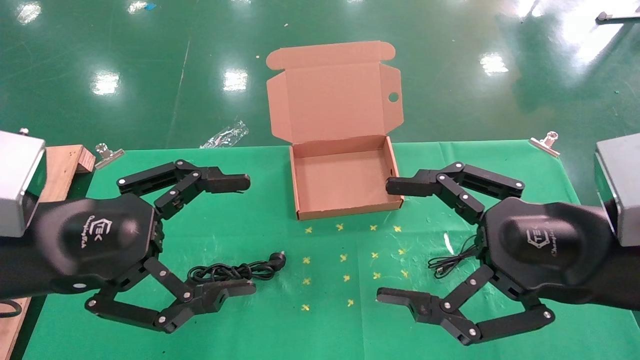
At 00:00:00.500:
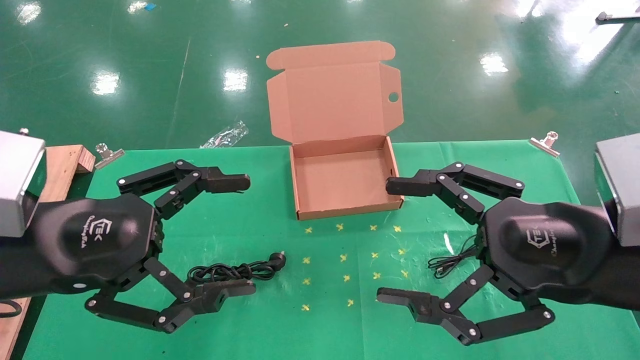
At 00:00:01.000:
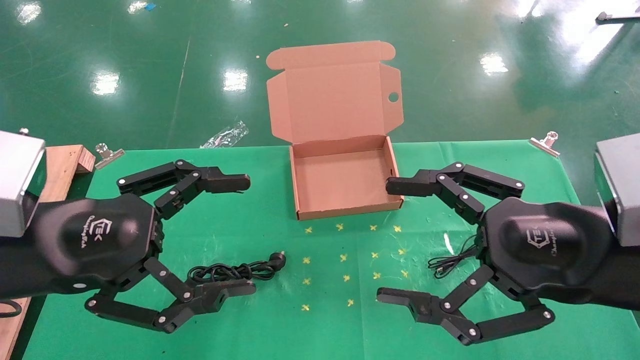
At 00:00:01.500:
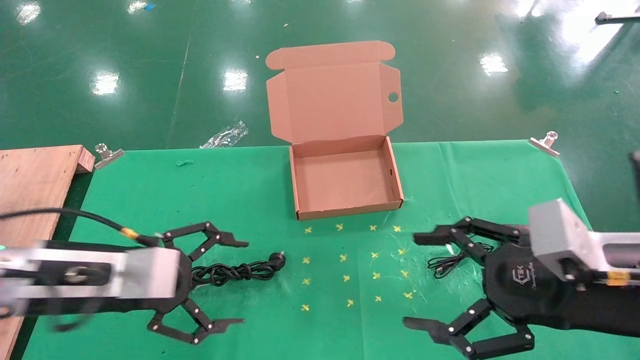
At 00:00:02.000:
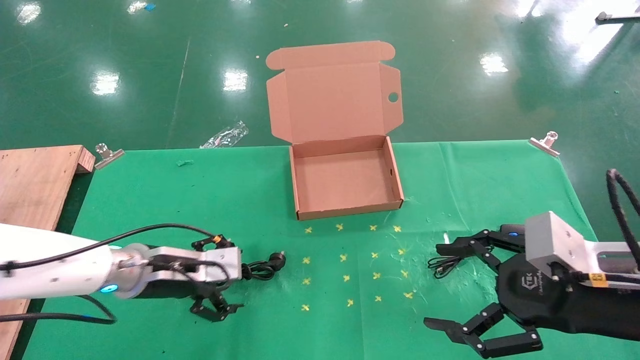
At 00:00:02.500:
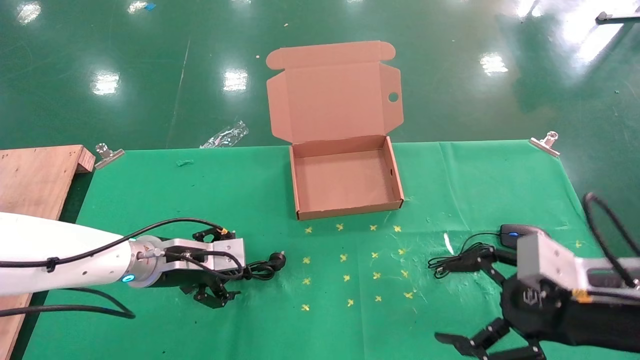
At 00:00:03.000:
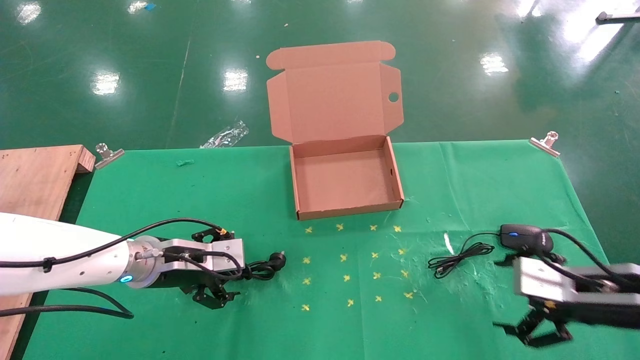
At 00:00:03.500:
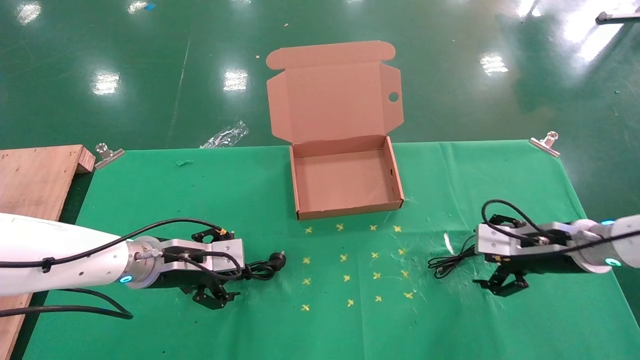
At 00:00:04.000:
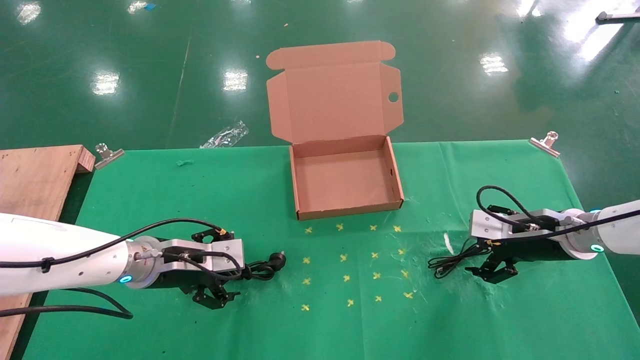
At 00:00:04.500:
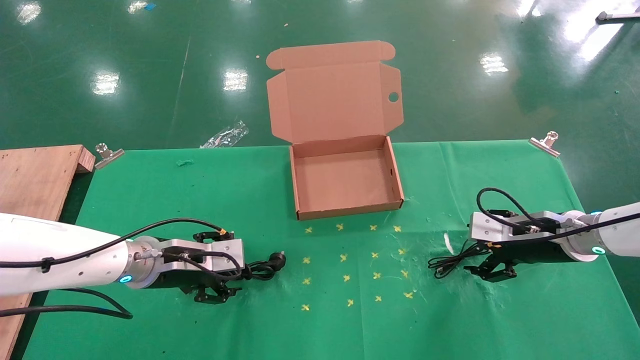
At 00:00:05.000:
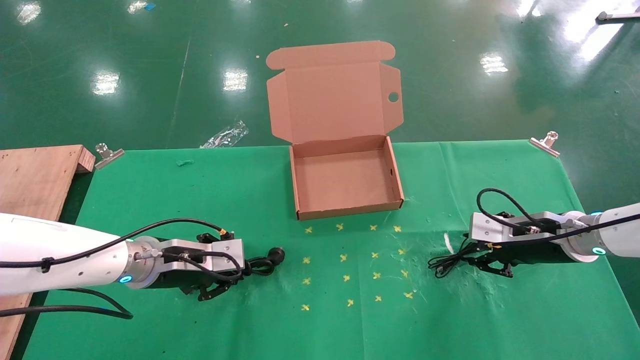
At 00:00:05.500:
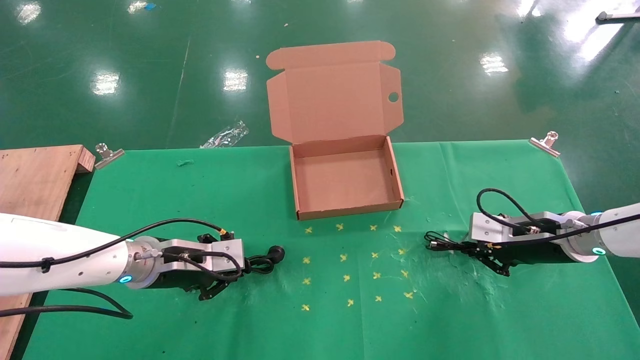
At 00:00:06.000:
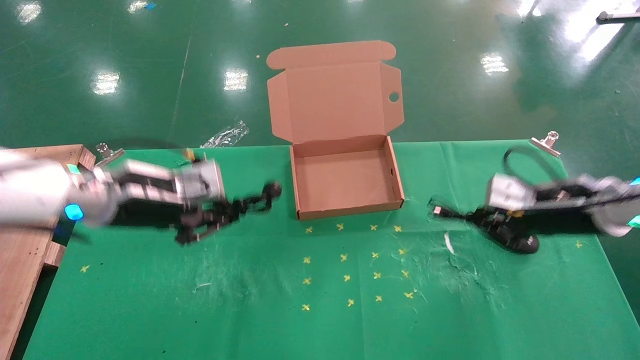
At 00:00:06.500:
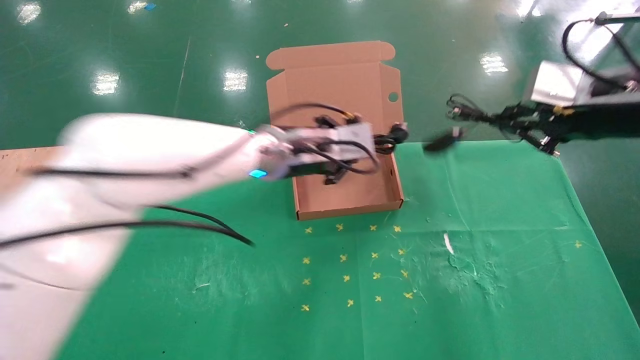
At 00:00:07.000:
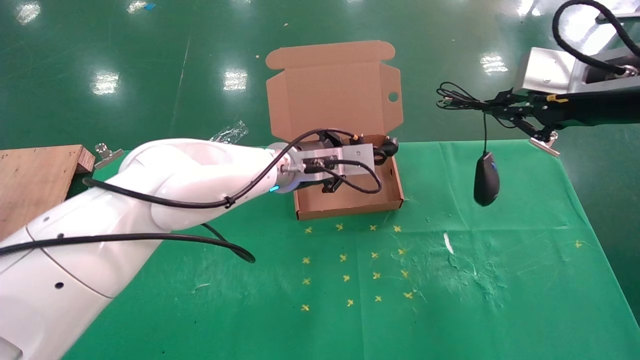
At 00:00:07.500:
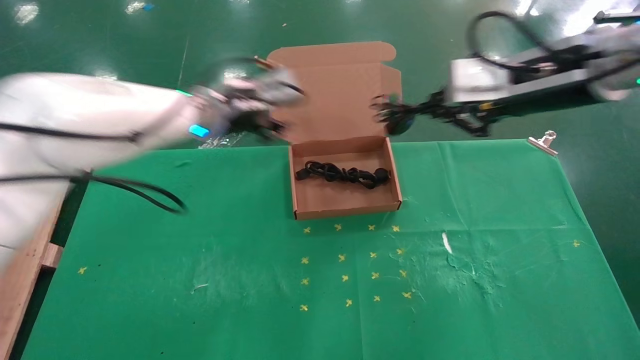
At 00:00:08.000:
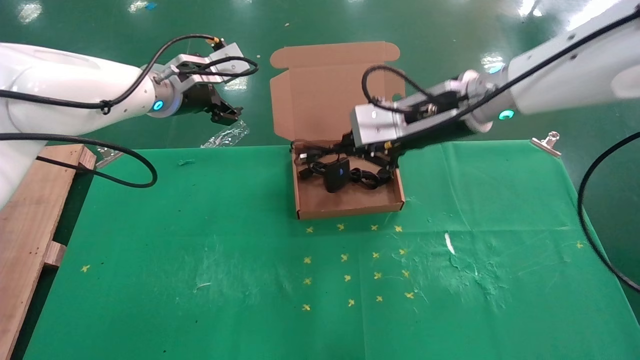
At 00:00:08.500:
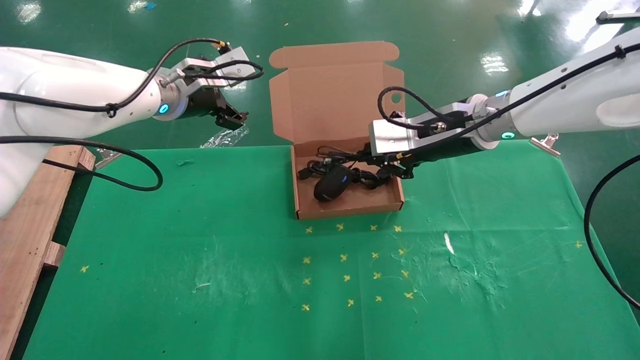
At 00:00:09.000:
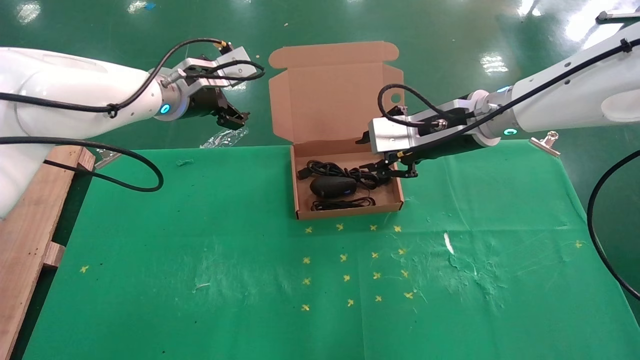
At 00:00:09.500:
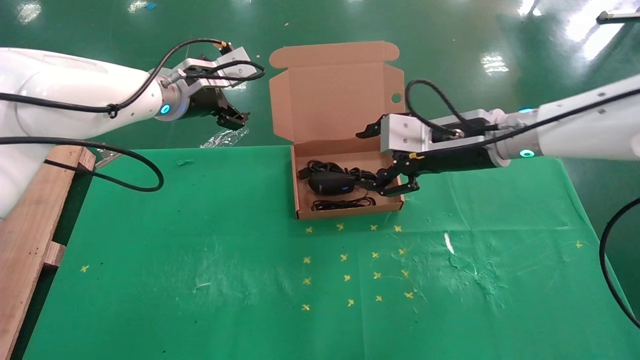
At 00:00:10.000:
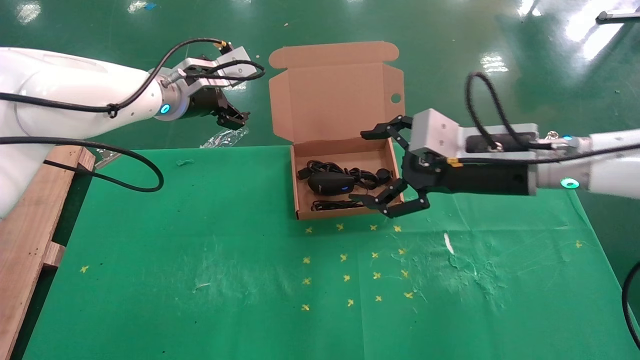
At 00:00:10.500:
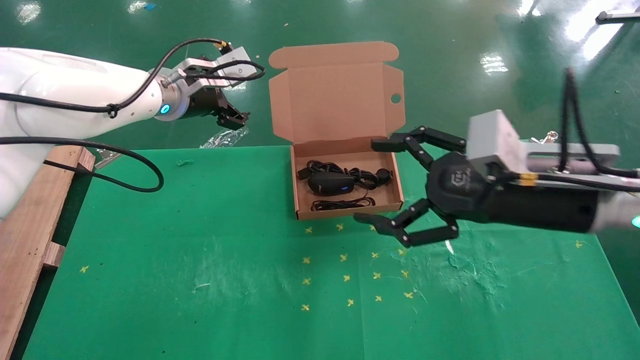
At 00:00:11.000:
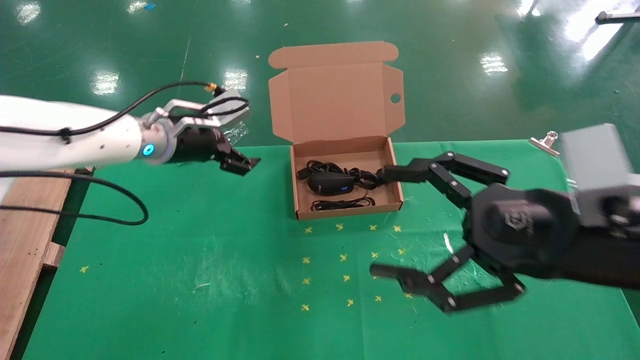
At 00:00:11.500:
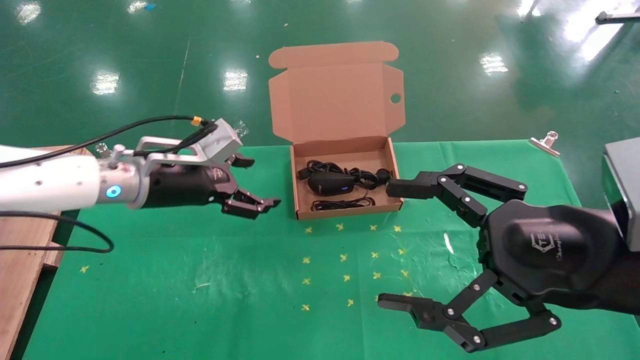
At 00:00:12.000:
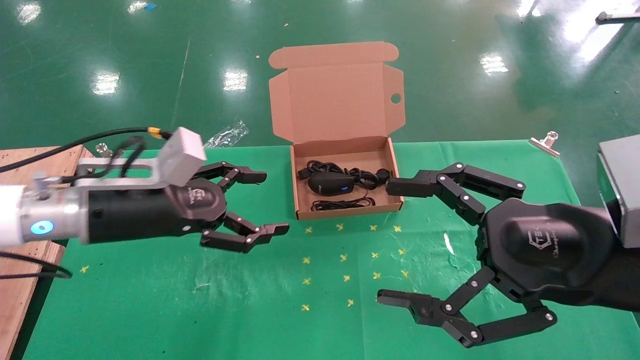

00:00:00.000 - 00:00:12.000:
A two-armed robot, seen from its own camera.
Task of the whole recording: grasp data cable left put into box grasp mouse right put into box.
Step, 00:00:01.500 - 00:00:05.500: Simultaneously pick up the mouse and power cord from the accessory packaging area.
Step, 00:00:06.000 - 00:00:09.000: Place the mouse and power cord into the box.
00:00:00.000 - 00:00:02.000: The left gripper goes some 20 cm forward and downward, while the right gripper moves downward, approximately 5 cm.
00:00:02.000 - 00:00:04.000: The right gripper is displaced forward by some 20 cm.
00:00:04.000 - 00:00:06.000: The two grippers go about 10 cm upward. The right gripper closes. The left gripper closes.
00:00:06.000 - 00:00:08.000: The right gripper is displaced to the left and upward by roughly 20 cm, while the left gripper travels forward and upward by approximately 15 cm, goes to the right and returns, approximately 15 cm each way, and opens its fingers.
00:00:08.000 - 00:00:10.000: The right gripper goes about 10 cm downward and backward, and opens.
00:00:10.000 - 00:00:12.000: The right gripper goes some 15 cm backward; the left gripper heads backward and downward, covering roughly 20 cm.
